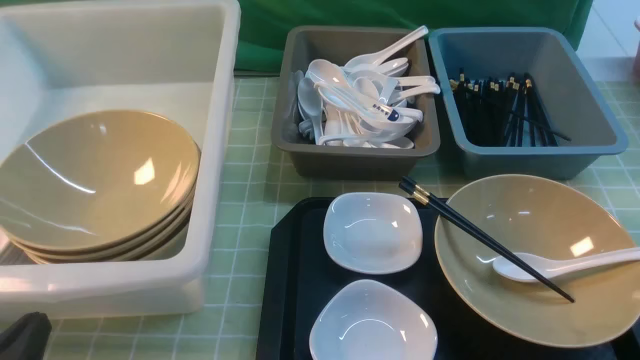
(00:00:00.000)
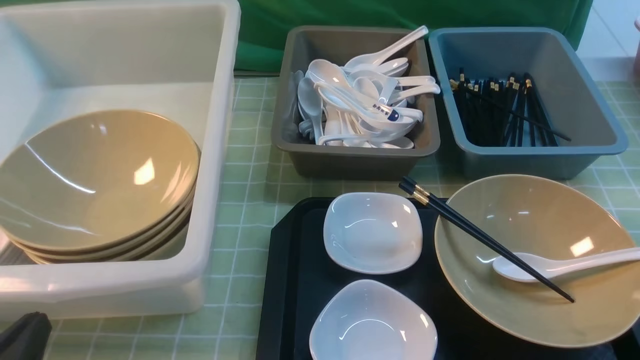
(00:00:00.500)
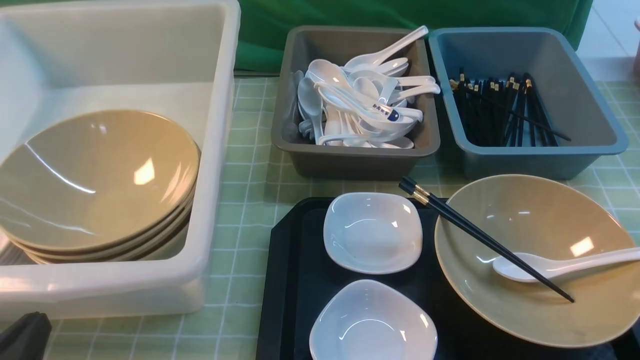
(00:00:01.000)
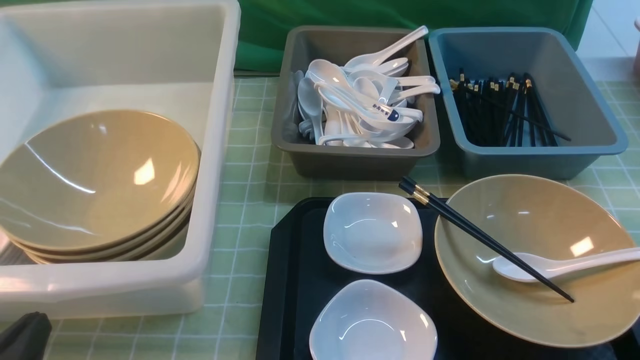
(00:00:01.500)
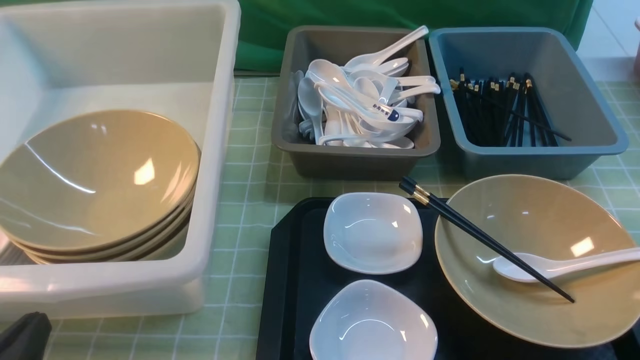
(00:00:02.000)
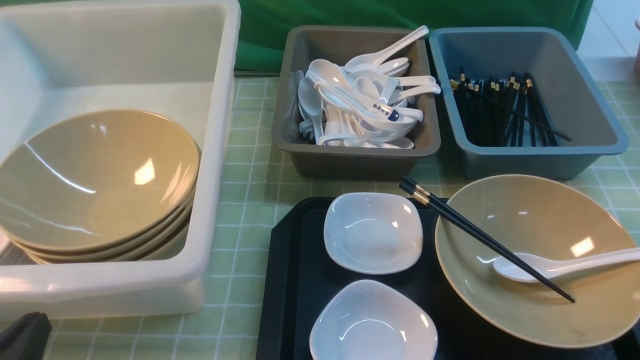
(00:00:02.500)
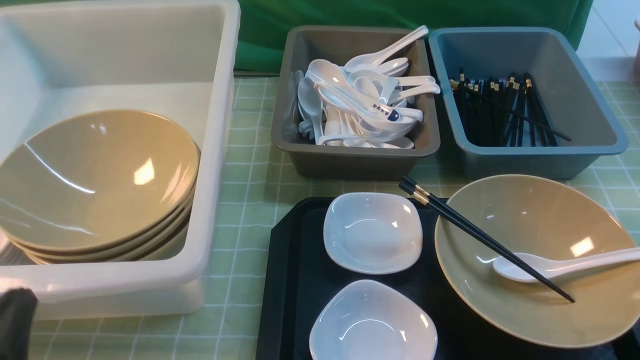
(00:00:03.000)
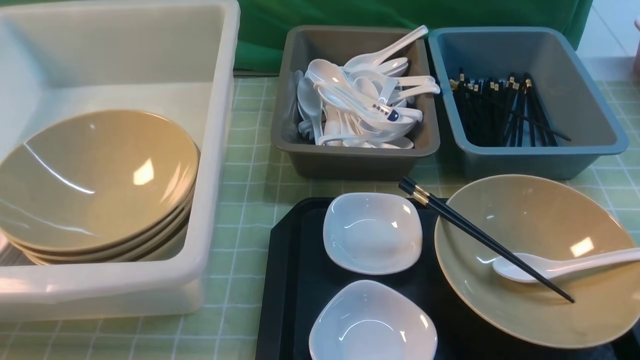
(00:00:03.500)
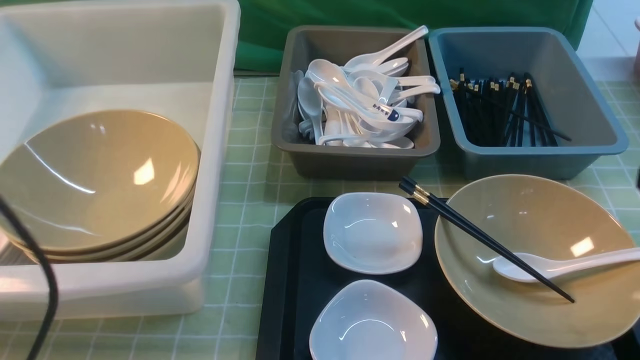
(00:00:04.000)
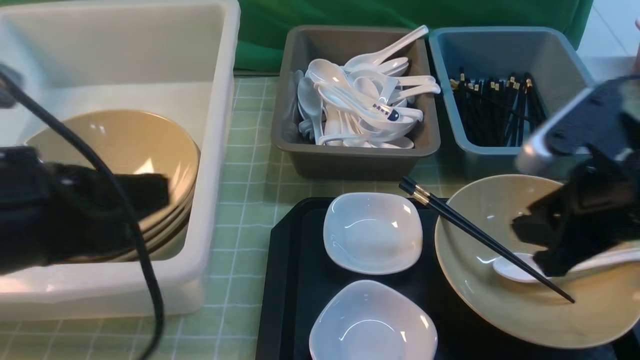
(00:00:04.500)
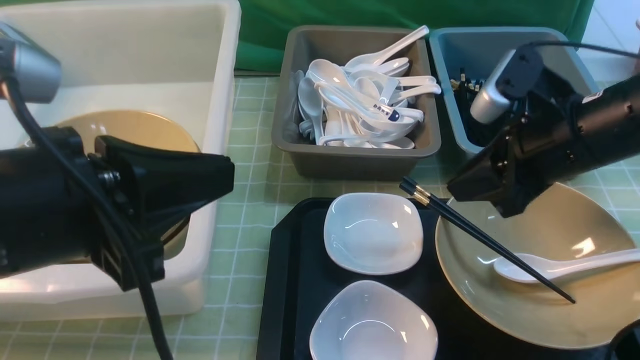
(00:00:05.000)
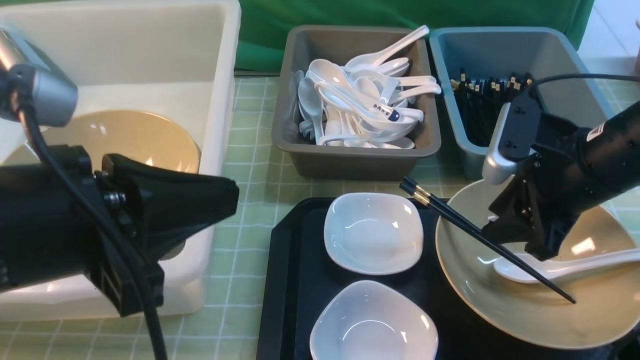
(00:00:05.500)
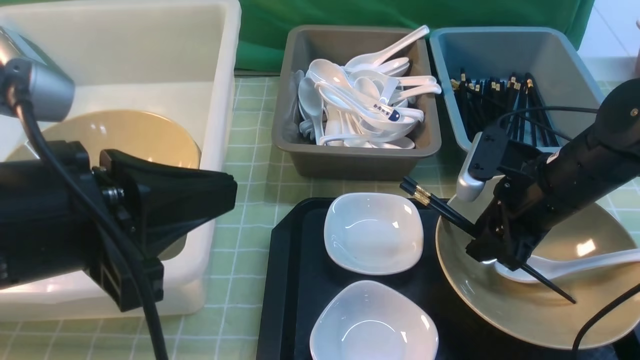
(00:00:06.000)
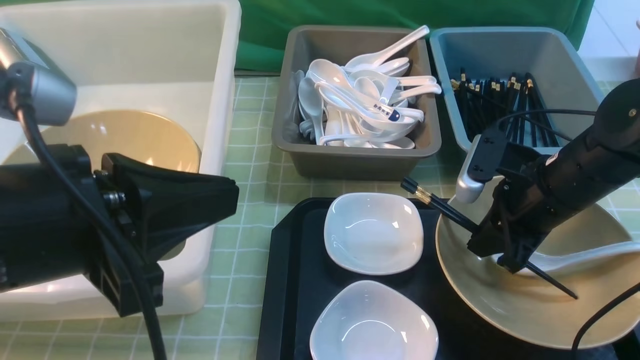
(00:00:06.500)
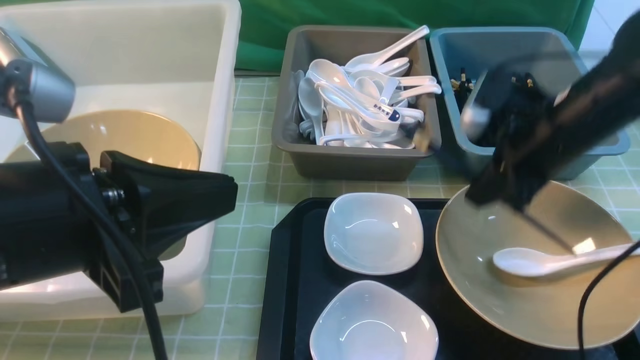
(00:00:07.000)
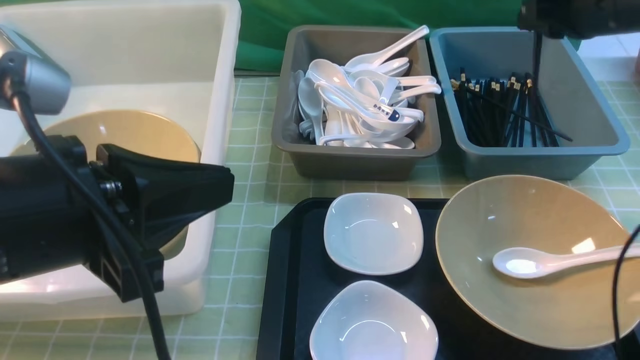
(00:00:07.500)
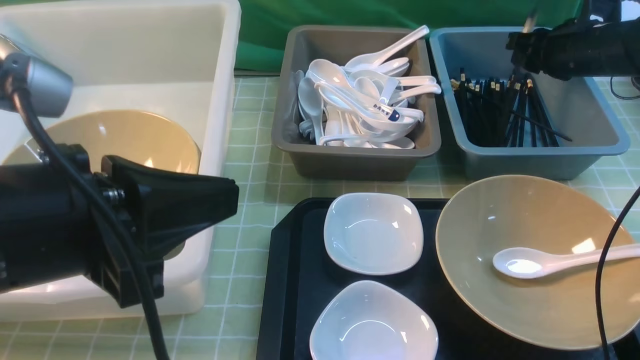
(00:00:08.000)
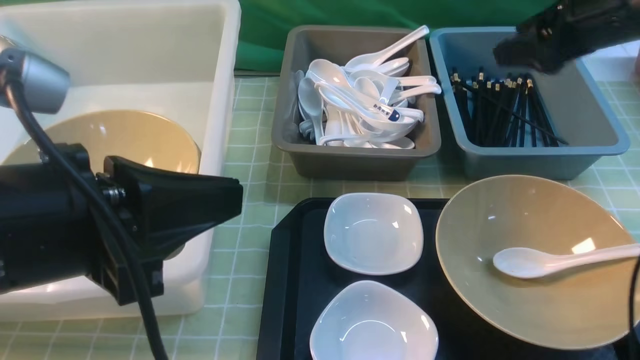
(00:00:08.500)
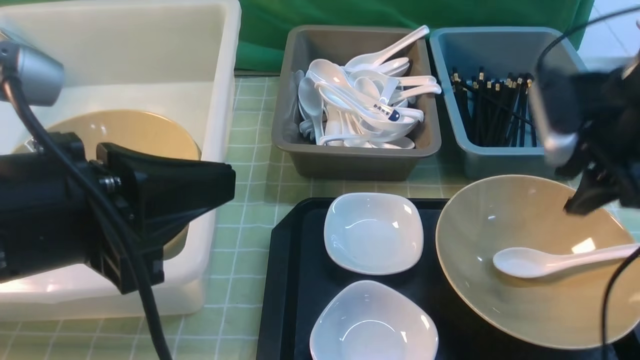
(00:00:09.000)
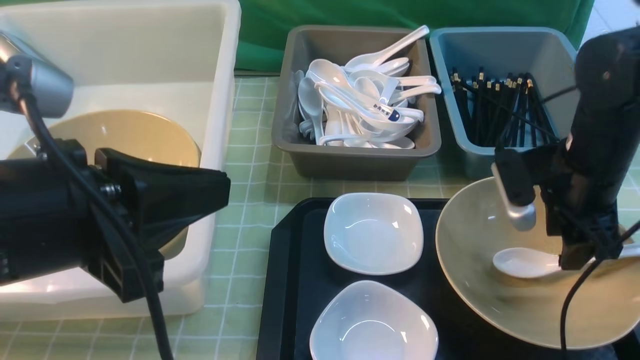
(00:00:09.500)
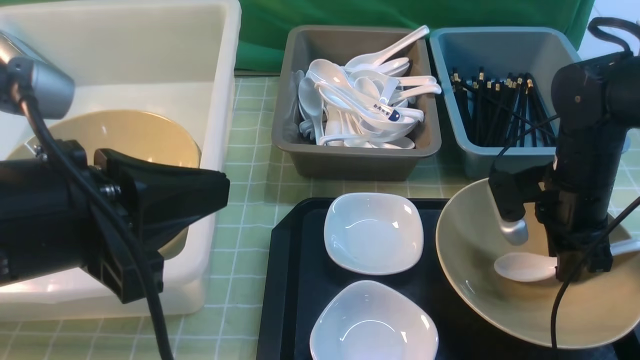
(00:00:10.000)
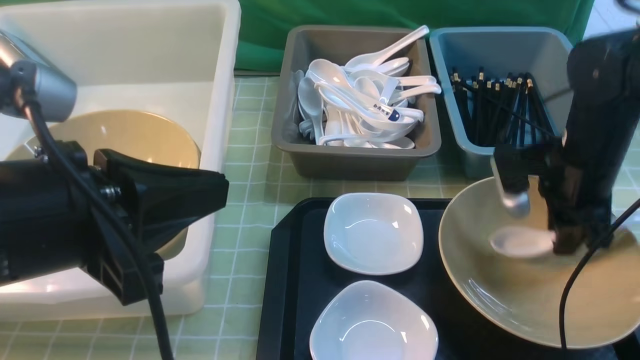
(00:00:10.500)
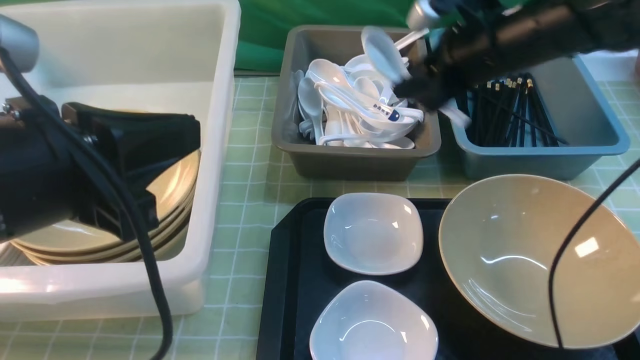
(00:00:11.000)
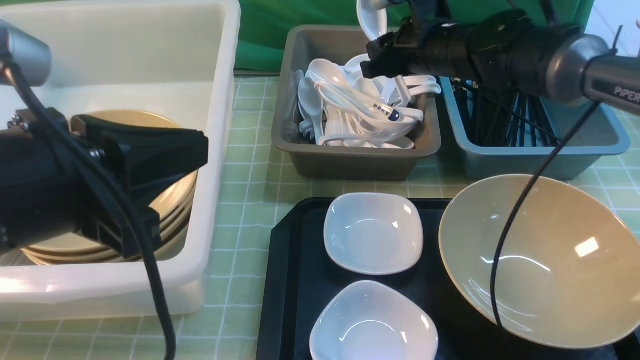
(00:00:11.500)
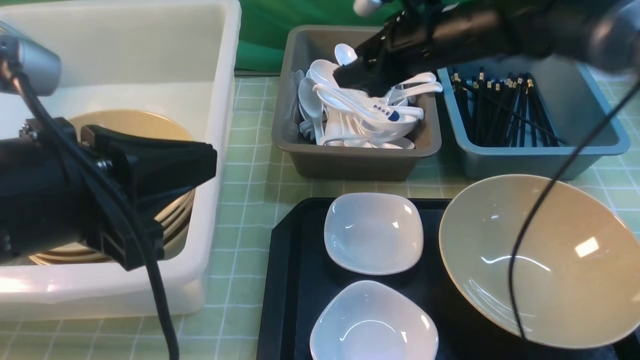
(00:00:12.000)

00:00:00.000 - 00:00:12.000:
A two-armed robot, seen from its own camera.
Task of the whole recording: on green table put chopsticks spoon bowls plates into blue grey white boxes.
Step, 00:00:00.000 - 00:00:06.500: use the right arm to grab the chopsticks.
Step, 00:00:07.000 - 00:00:08.500: use the right arm to put the chopsticks into the small storage box on the right.
Step, 00:00:09.000 - 00:00:10.500: use the right arm to grab the soup spoon in the middle.
00:00:02.000 - 00:00:04.000: The left gripper travels upward by roughly 15 cm.
00:00:04.000 - 00:00:06.000: The left gripper goes about 10 cm to the right. Meanwhile the right gripper is displaced forward and downward by about 20 cm.
00:00:06.000 - 00:00:08.000: The right gripper goes some 20 cm forward and to the right, and closes, then opens again.
00:00:08.000 - 00:00:10.000: The right gripper moves backward, downward and to the left, about 15 cm, and opens, then closes again.
00:00:10.000 - 00:00:12.000: The right gripper heads upward, to the left and forward, covering some 20 cm, and opens.

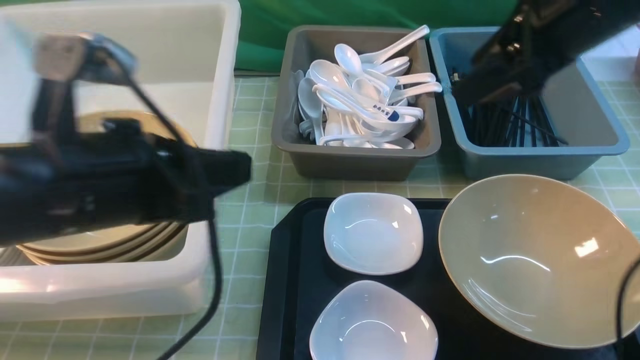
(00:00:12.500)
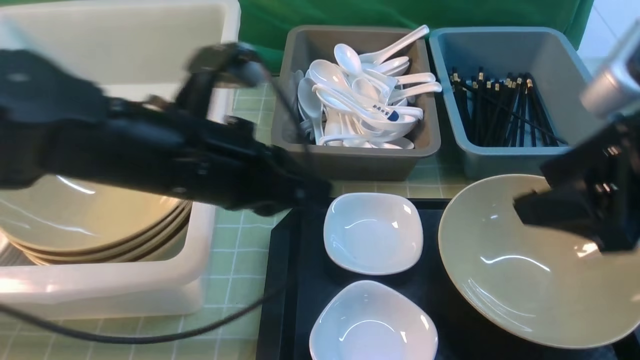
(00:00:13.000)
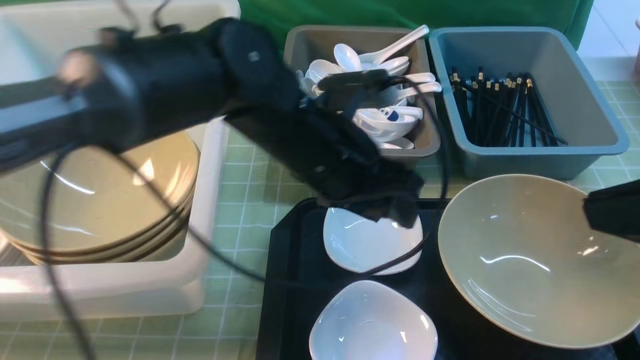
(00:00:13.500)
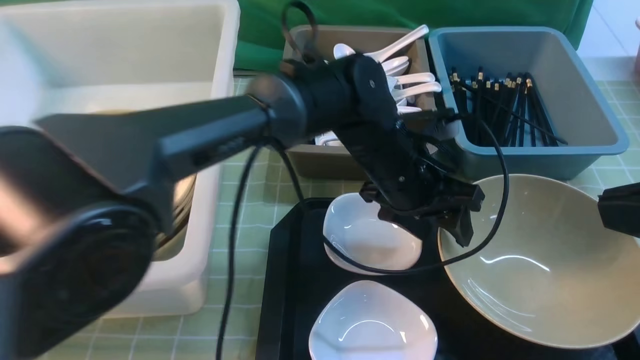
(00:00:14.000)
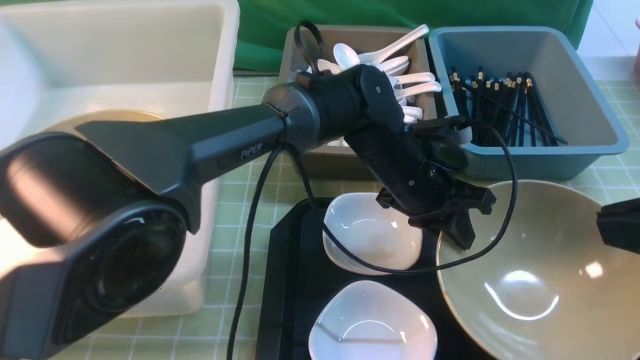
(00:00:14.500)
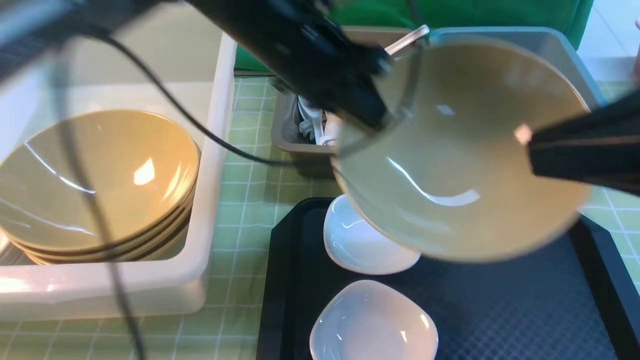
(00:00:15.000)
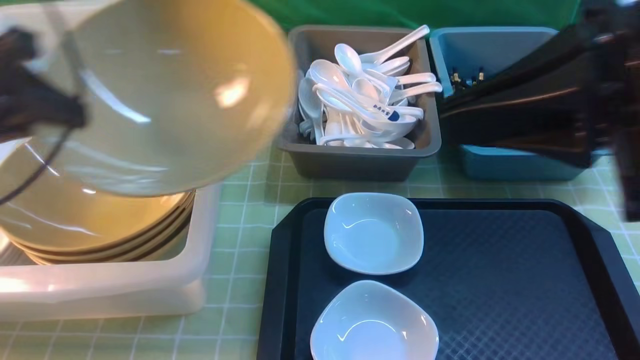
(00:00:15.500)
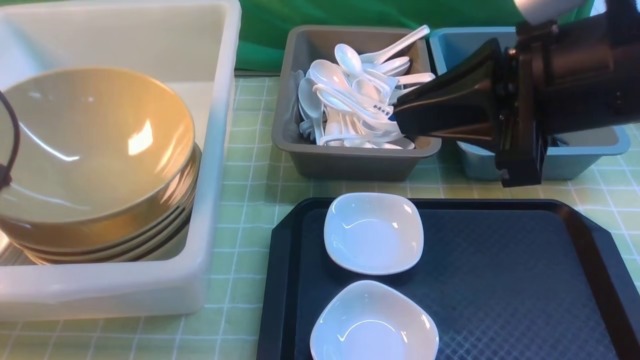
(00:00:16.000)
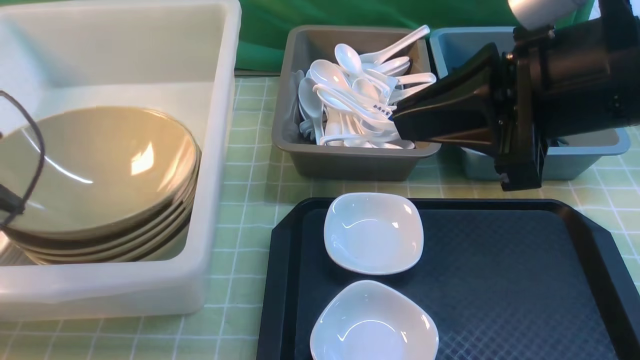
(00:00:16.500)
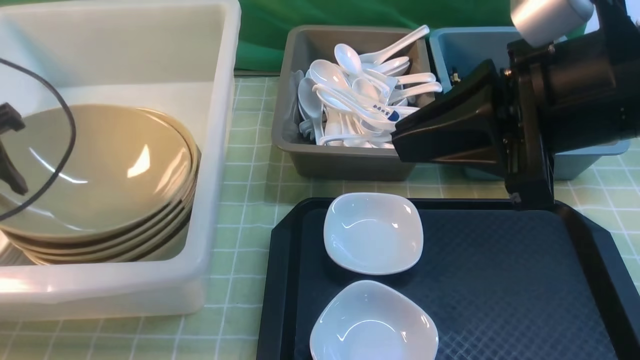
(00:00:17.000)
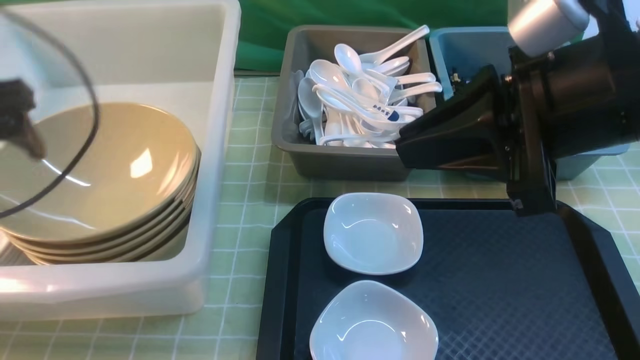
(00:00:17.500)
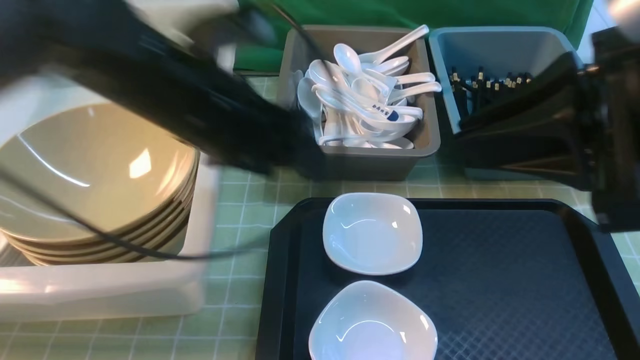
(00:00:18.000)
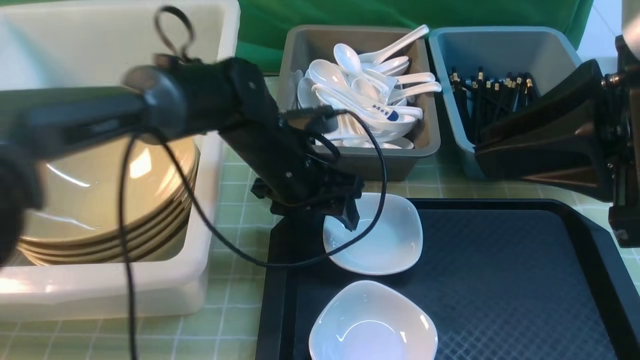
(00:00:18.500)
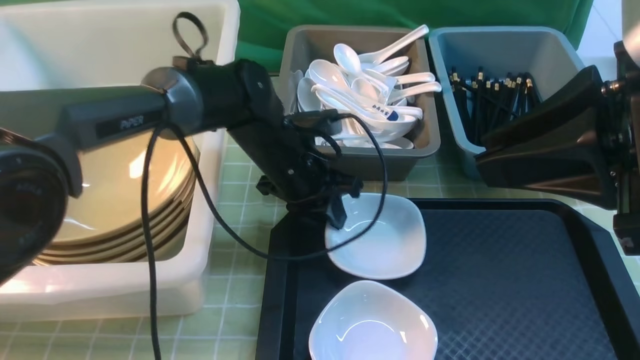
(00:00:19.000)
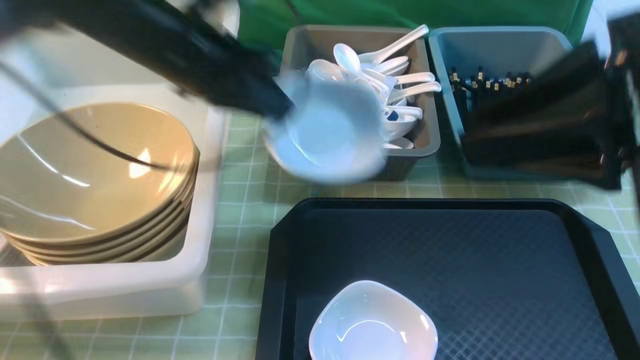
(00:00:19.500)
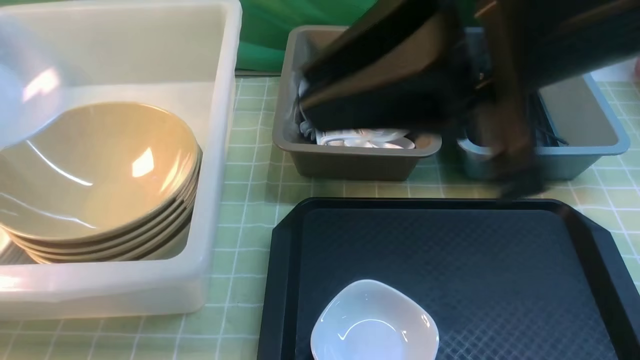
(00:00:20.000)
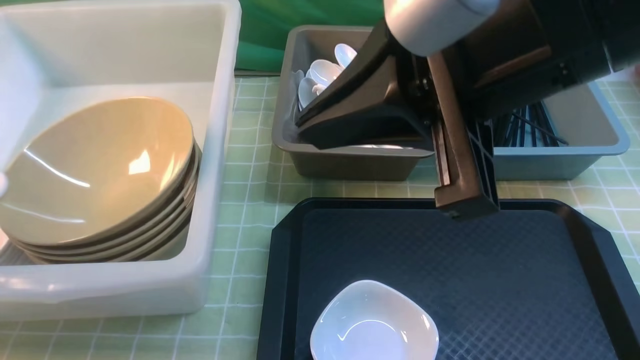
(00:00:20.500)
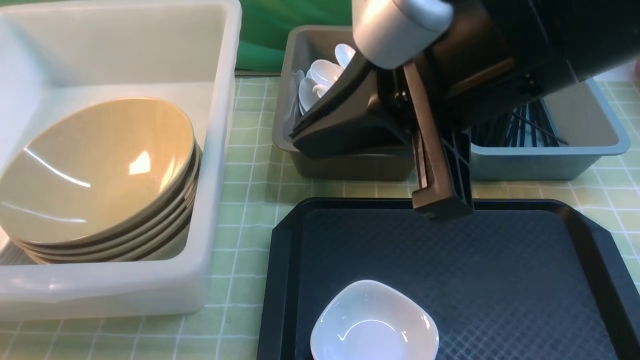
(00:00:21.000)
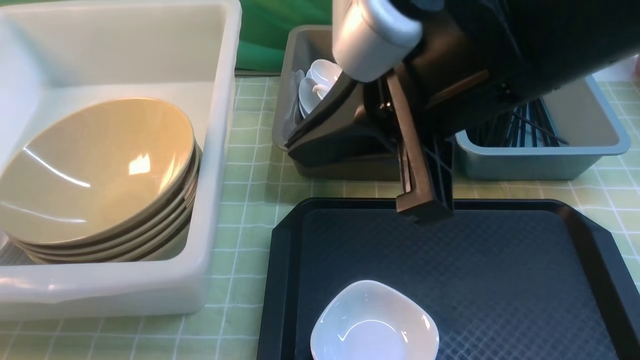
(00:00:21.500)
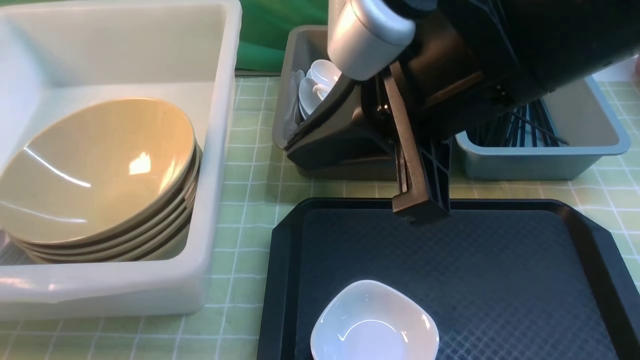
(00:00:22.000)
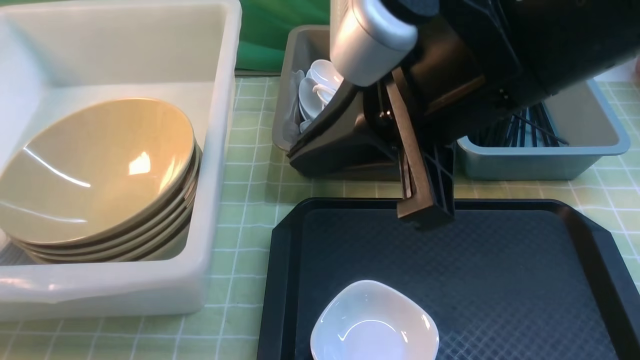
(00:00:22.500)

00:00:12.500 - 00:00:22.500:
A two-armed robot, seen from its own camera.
Task of the whole recording: on green table put chopsticks spoon bowls plates into blue grey white boxes.
Step, 00:00:13.000 - 00:00:14.500: use the left arm to grab the yellow noodle bowl on the left.
Step, 00:00:15.000 - 00:00:17.500: use the left arm to put the noodle bowl into the large storage box on the left.
Step, 00:00:18.000 - 00:00:19.000: use the left arm to grab the plate.
00:00:12.500 - 00:00:14.500: The left gripper moves to the right, forward and downward, roughly 30 cm, and opens, then closes again, while the right gripper travels backward by about 20 cm, and closes up.
00:00:14.500 - 00:00:16.500: The left gripper travels to the left by roughly 40 cm; the right gripper shifts approximately 15 cm forward and to the left.
00:00:16.500 - 00:00:18.500: The left gripper travels to the right by roughly 30 cm, and opens. Meanwhile the right gripper moves backward, some 5 cm.
00:00:18.500 - 00:00:20.500: The right gripper travels to the left by approximately 10 cm. Meanwhile the left gripper heads to the left and upward, covering roughly 40 cm, and closes its fingers.
00:00:20.500 - 00:00:22.500: The left gripper shifts by roughly 5 cm, and opens.
